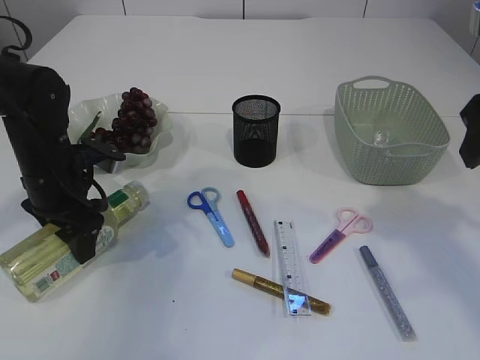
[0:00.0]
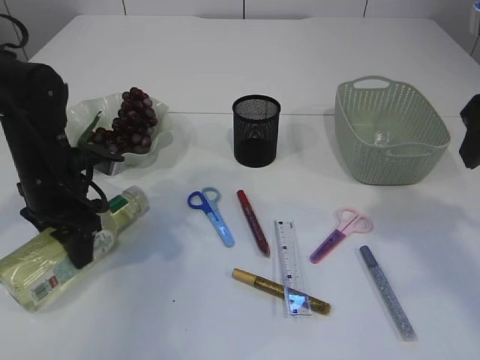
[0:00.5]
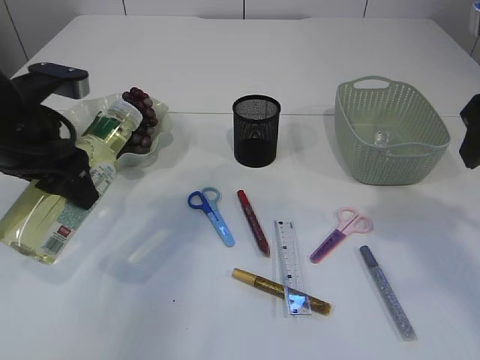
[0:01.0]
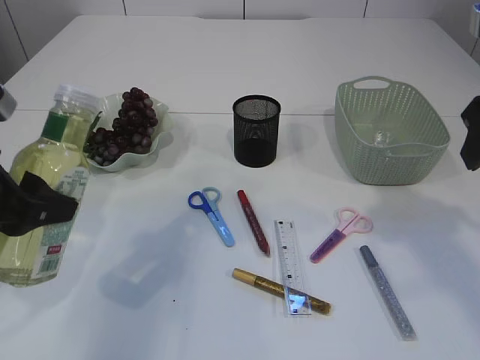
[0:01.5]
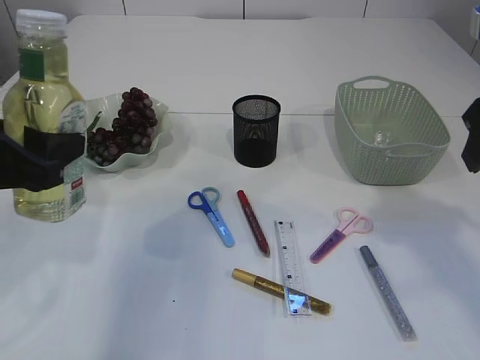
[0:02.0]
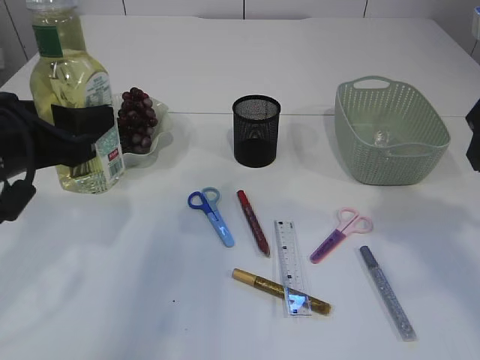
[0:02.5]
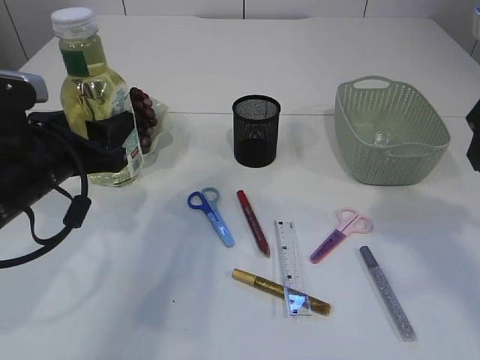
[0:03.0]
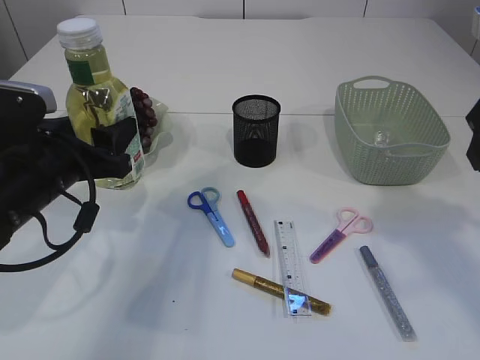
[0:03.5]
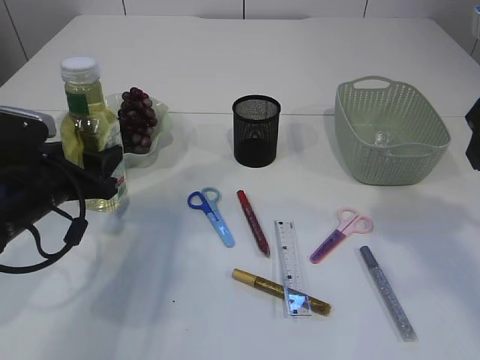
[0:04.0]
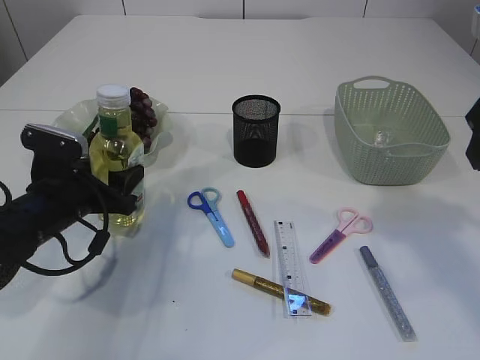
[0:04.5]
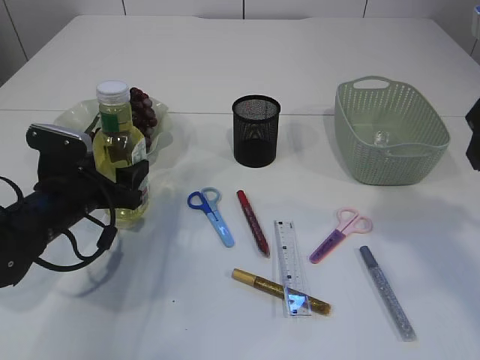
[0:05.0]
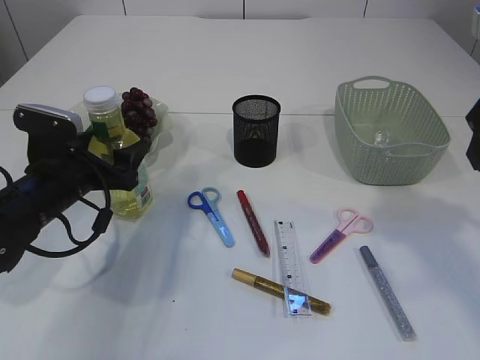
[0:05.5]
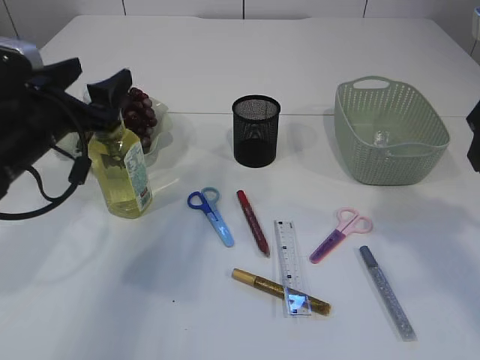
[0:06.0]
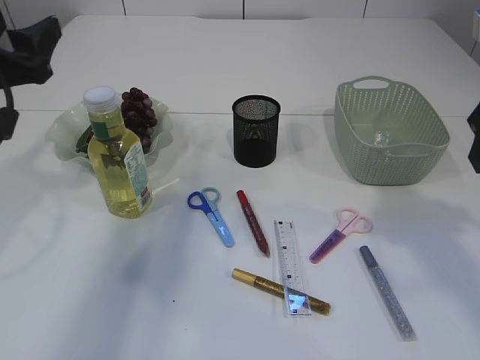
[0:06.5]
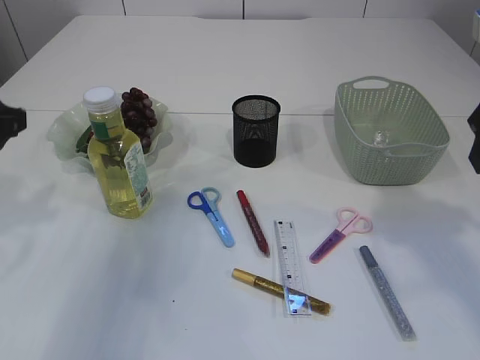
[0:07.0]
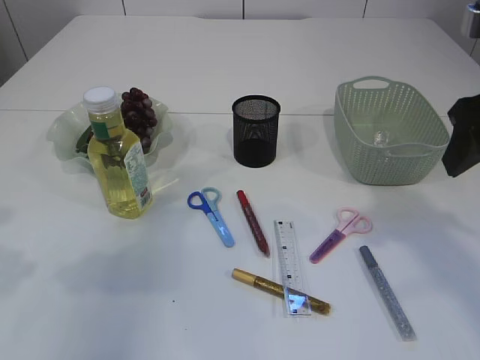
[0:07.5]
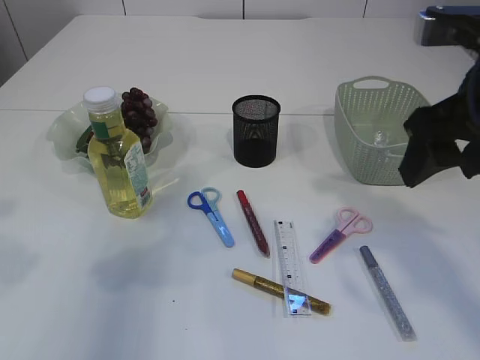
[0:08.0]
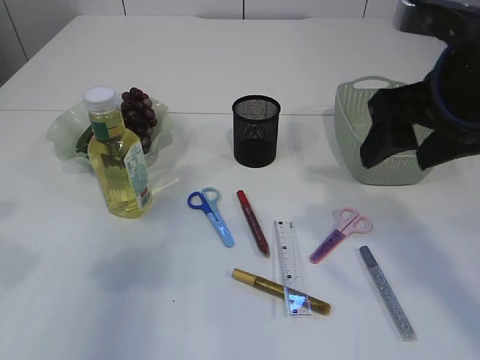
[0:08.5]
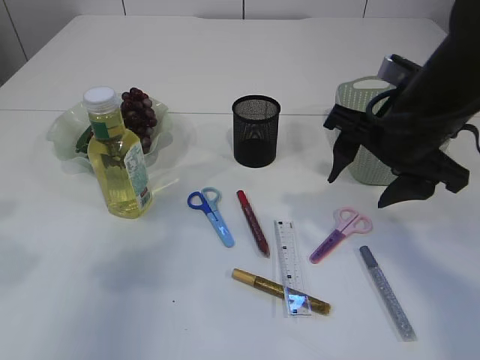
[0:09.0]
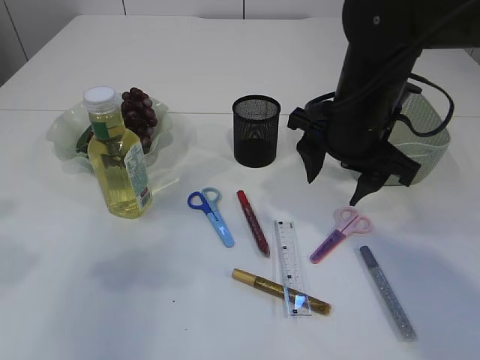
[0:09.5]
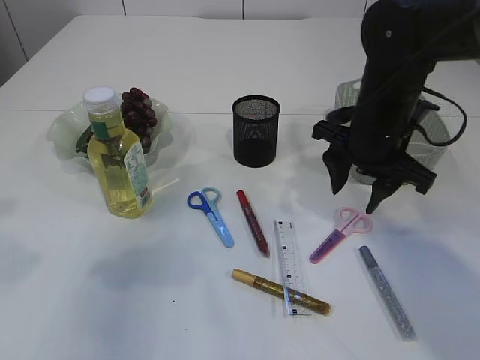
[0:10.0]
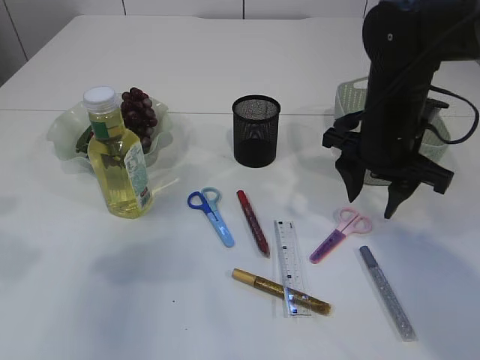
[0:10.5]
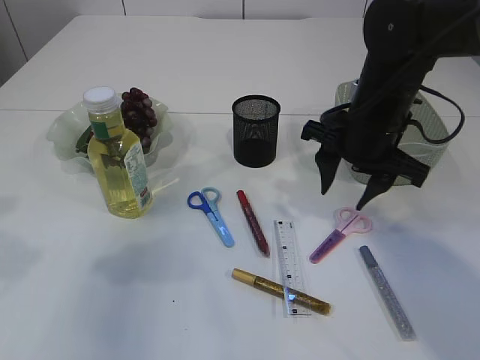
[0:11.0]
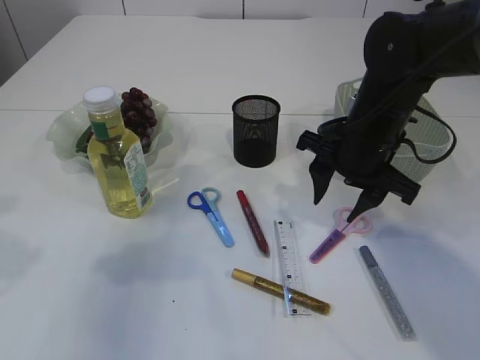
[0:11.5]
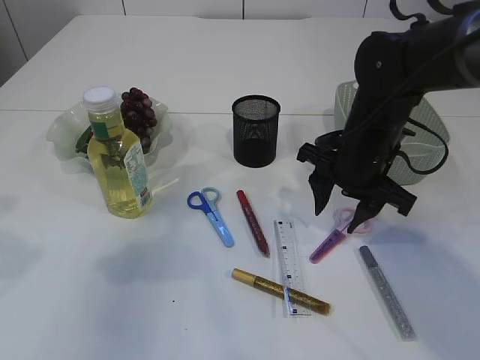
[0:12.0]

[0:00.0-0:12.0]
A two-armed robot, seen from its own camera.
Step, 1.0 to 6.0 s: Place the bottle.
0.0 to 2.0 s: The left gripper travels backward and upward by about 20 cm.
2.0 to 4.0 s: The left gripper travels downward and forward by about 15 cm.
4.0 to 6.0 s: The left gripper is displaced upward by about 5 cm, and opens up.
6.0 to 8.0 s: The left gripper shifts approximately 15 cm backward, upward and to the left, and closes.
8.0 to 10.0 s: The right gripper shifts roughly 15 cm forward, downward and to the left.
10.0 to 12.0 s: The grippers stay close to where they were, moving slightly.

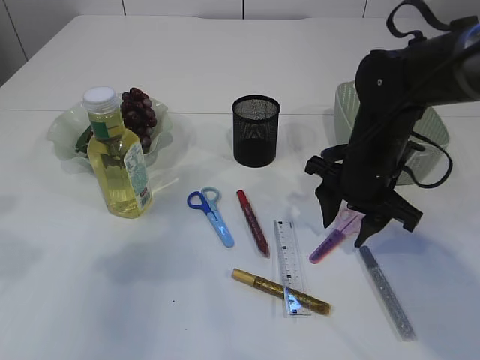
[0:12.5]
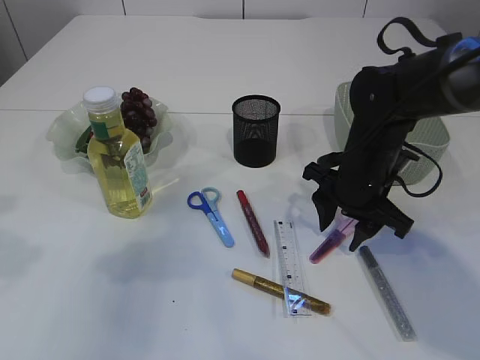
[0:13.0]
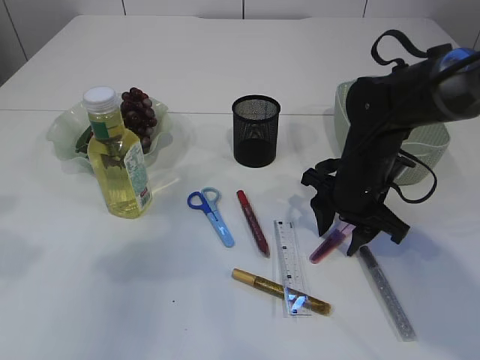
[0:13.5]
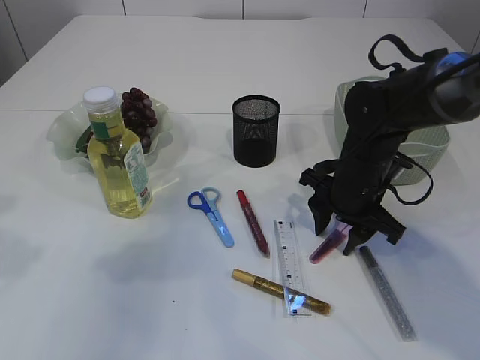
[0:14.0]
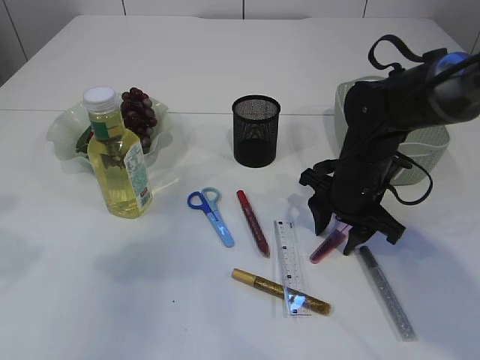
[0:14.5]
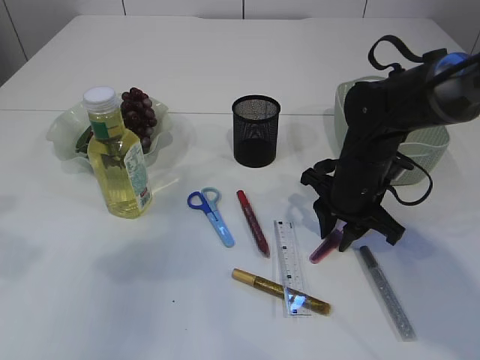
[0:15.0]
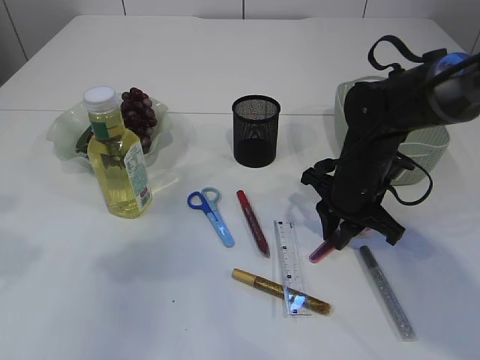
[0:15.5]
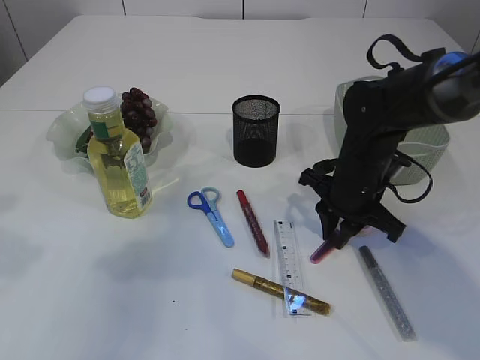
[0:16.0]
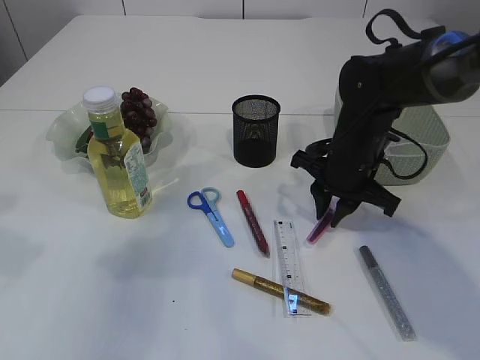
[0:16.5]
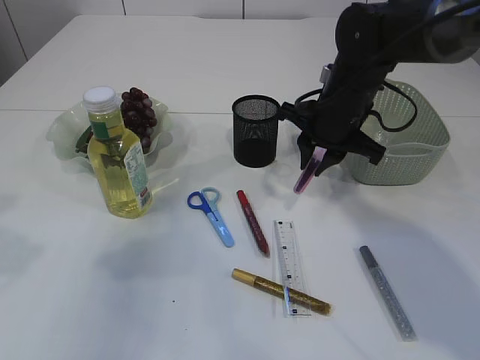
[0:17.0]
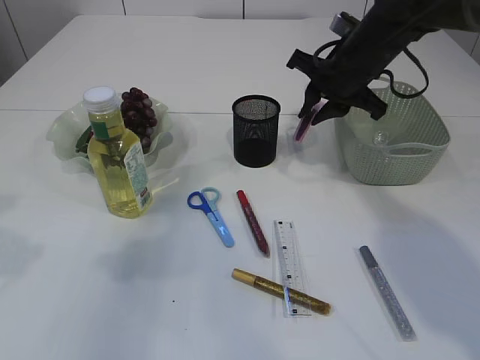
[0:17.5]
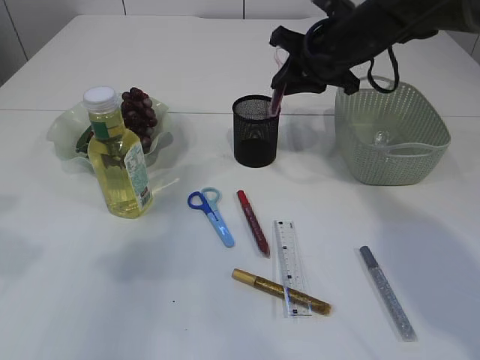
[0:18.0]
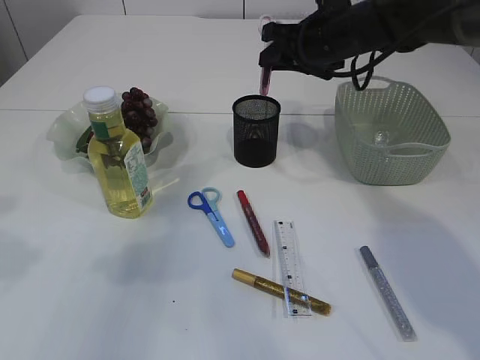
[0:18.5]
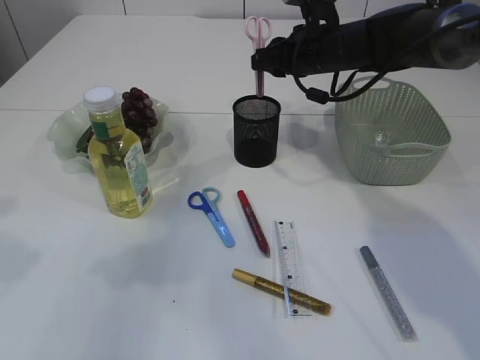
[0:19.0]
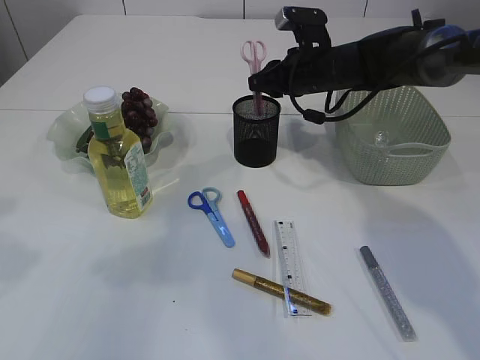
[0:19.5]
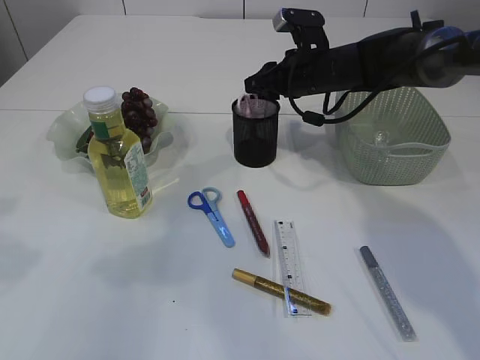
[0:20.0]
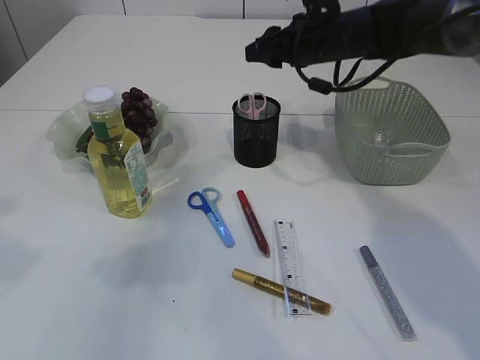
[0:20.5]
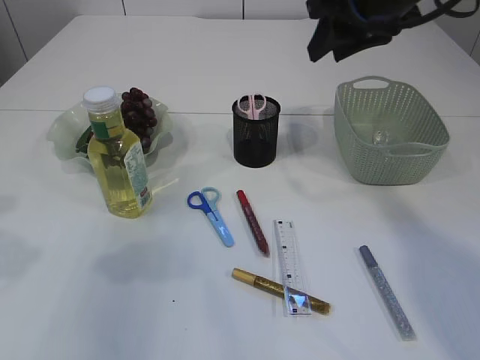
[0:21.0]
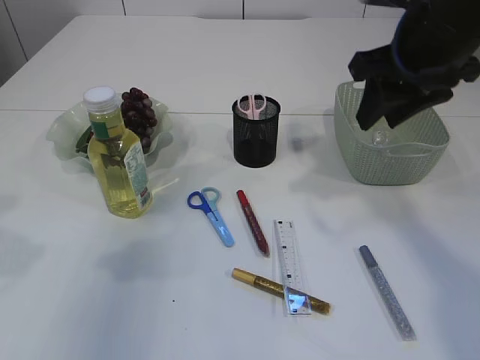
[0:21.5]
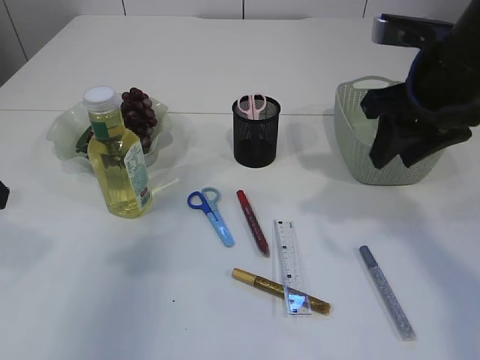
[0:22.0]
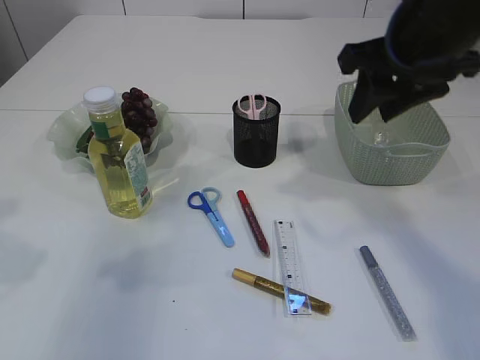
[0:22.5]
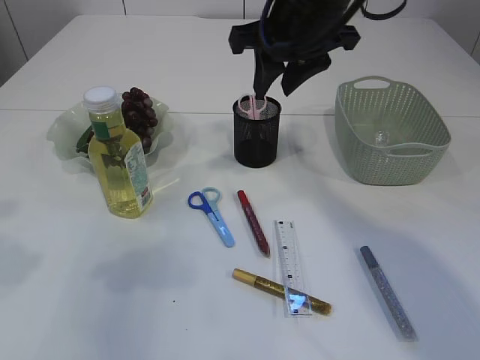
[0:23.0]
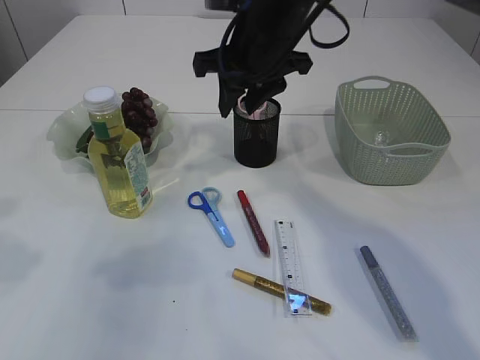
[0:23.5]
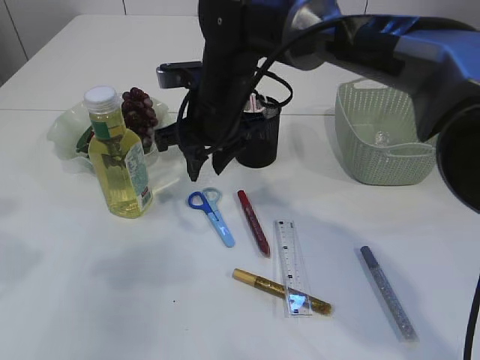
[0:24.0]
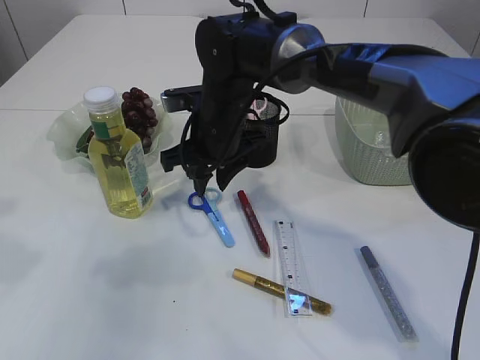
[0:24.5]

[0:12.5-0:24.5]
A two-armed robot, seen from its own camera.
Step, 12.5 to 16.5 s: pick up the pink scissors.
Step, 17.0 to 20.5 s: Place the pink scissors into the pen holder.
12.5 to 14.5 s: The grippers stay close to where they were, moving slightly.
14.5 to 16.5 s: The right gripper closes up.
16.5 to 18.5 s: The right gripper heads upward and forward, covering approximately 15 cm.
20.5 to 22.5 s: The right gripper moves backward and upward, roughly 20 cm.
22.5 to 24.5 s: The right gripper moves to the left, downward and forward, approximately 25 cm.

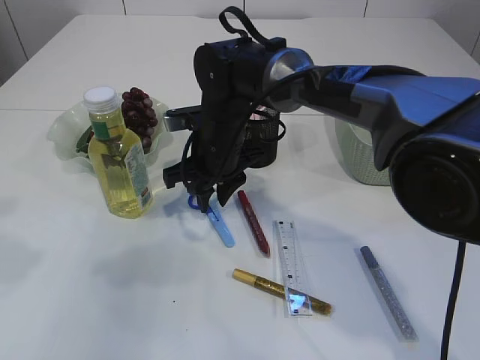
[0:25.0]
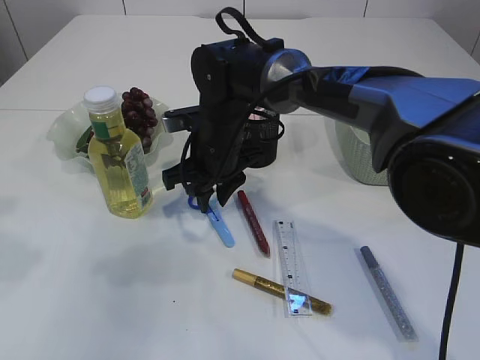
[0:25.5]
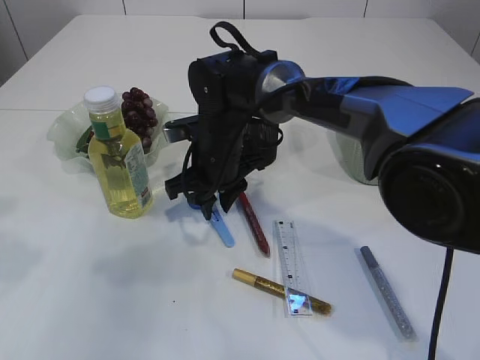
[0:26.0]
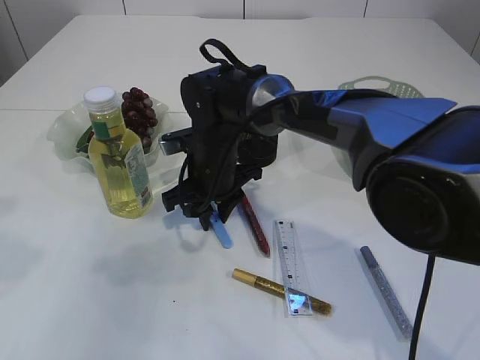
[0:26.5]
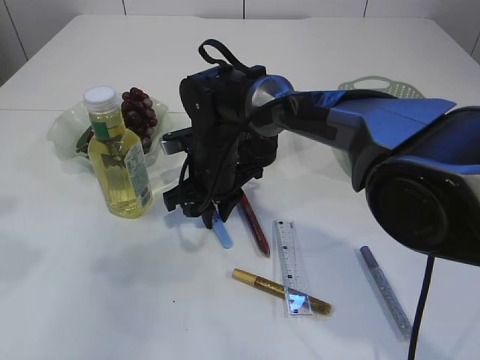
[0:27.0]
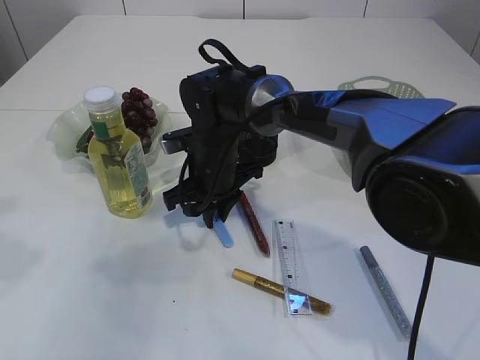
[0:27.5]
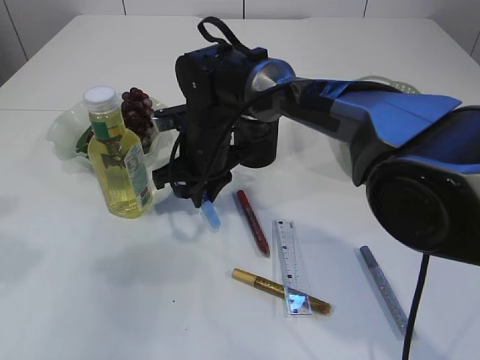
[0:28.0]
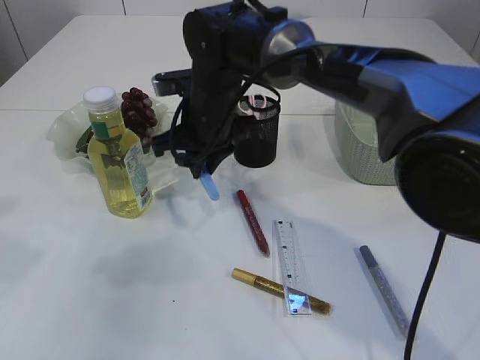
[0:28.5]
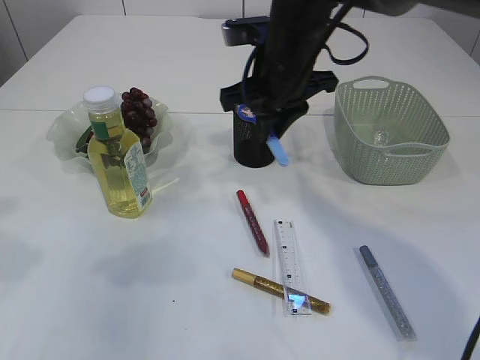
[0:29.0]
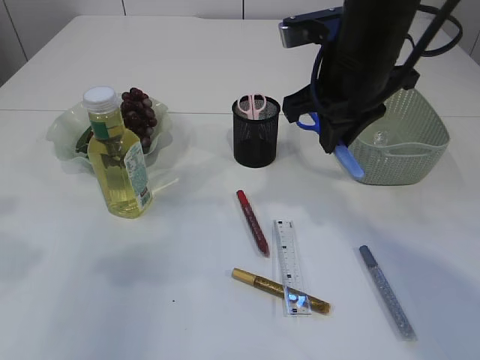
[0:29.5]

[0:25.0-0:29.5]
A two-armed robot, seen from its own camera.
Step, 25.0 to 28.0 s: pick up the blue scissors.
25.0 to 27.0 s: The grippers make only small movements.
27.0 to 29.5 s: The right gripper is displaced upward and to the right by approximately 20 cm.
